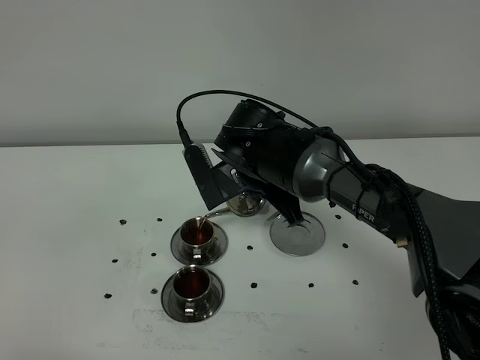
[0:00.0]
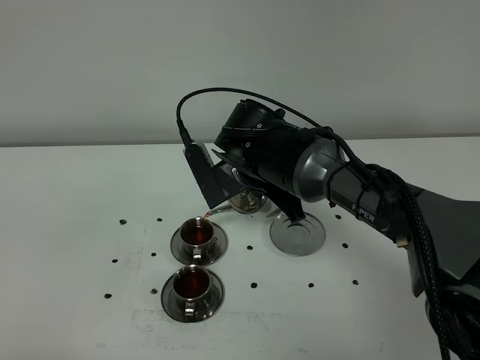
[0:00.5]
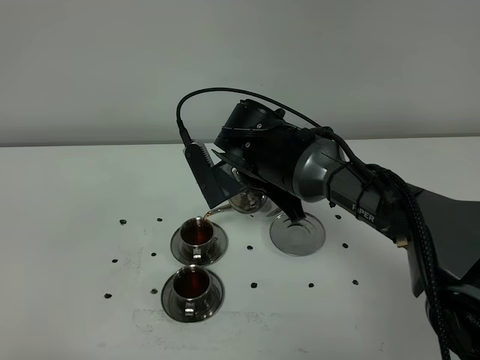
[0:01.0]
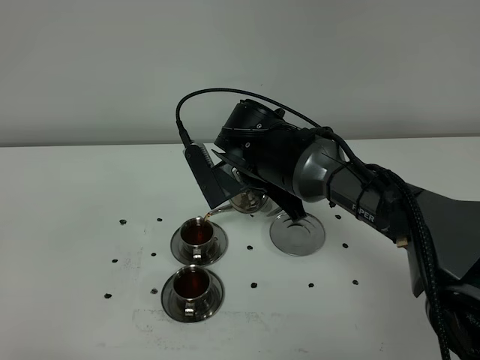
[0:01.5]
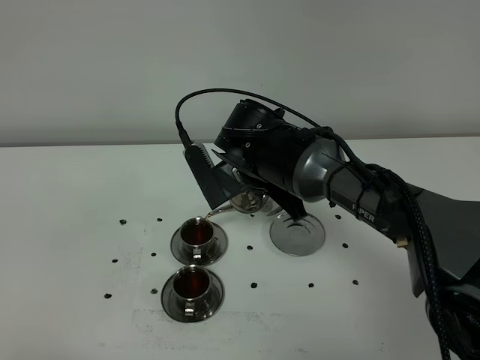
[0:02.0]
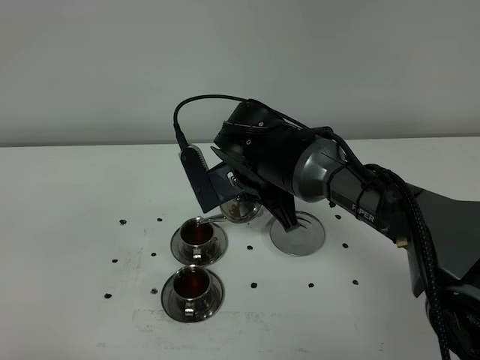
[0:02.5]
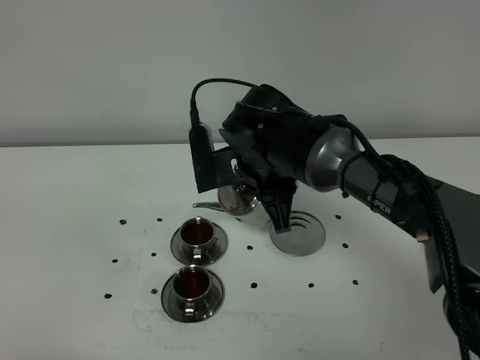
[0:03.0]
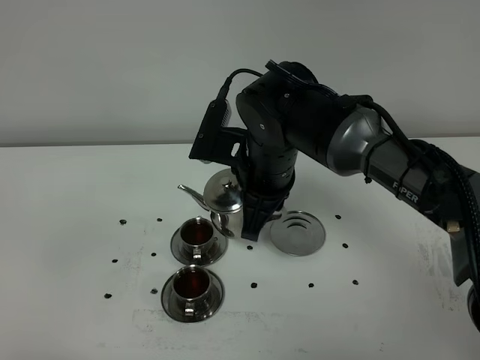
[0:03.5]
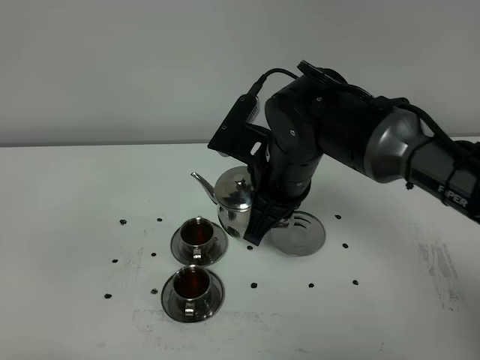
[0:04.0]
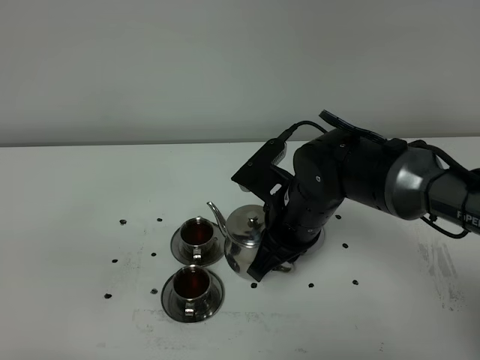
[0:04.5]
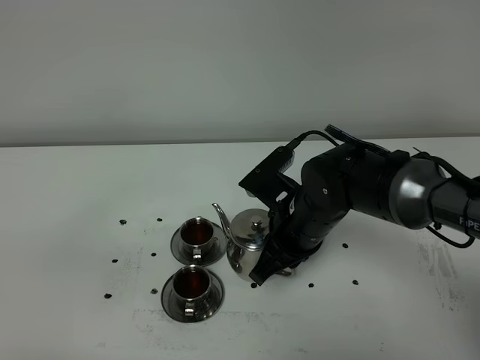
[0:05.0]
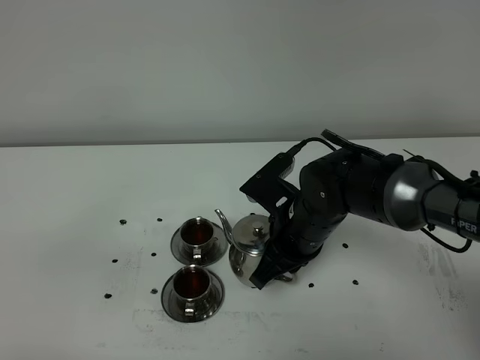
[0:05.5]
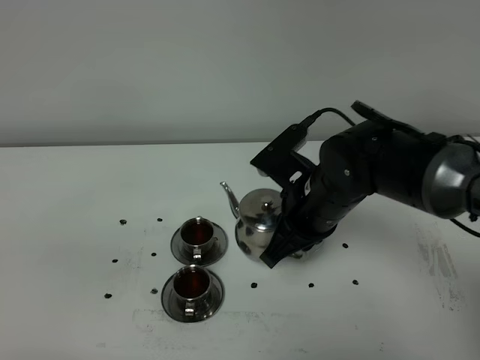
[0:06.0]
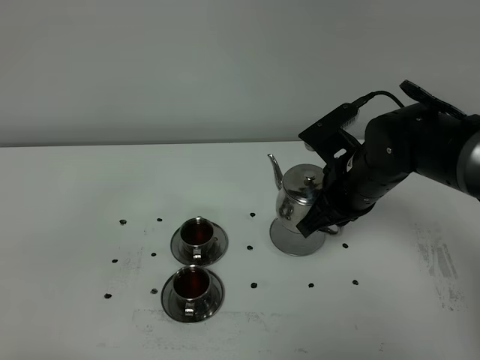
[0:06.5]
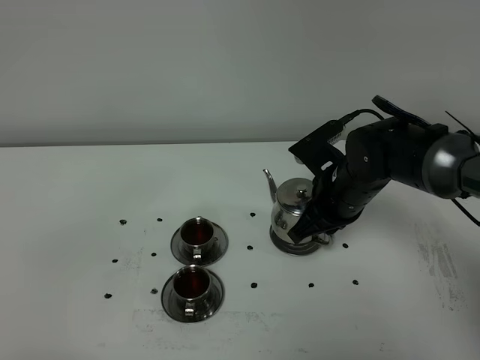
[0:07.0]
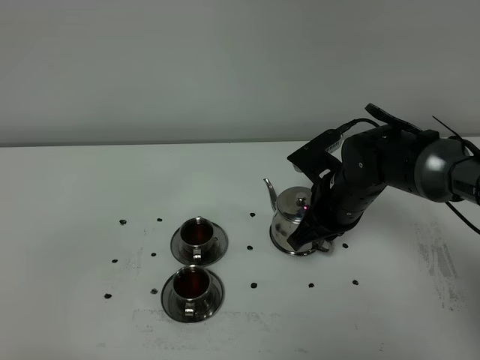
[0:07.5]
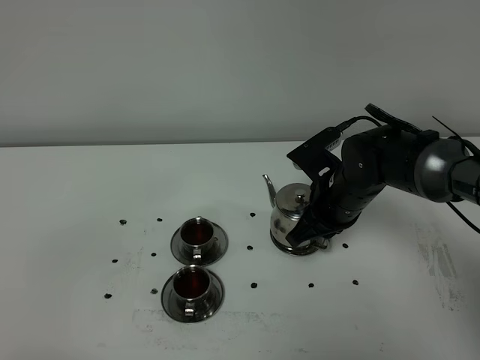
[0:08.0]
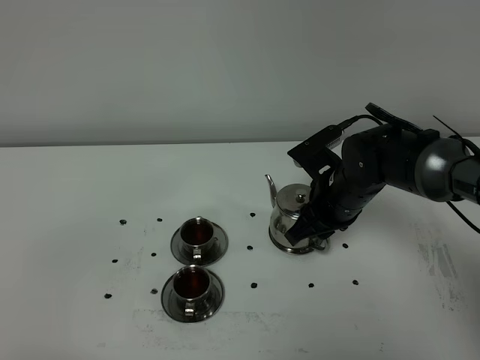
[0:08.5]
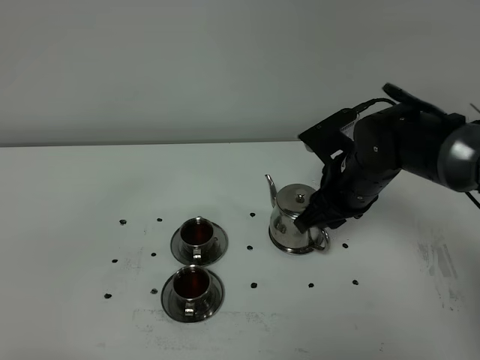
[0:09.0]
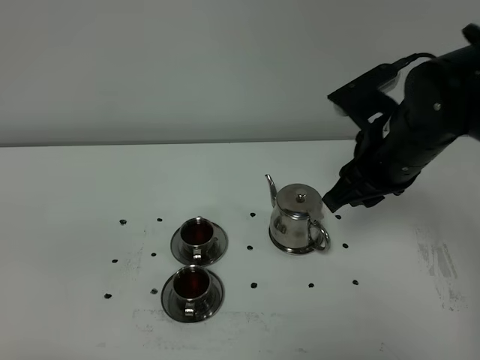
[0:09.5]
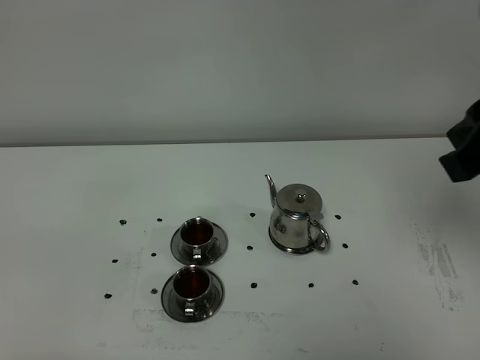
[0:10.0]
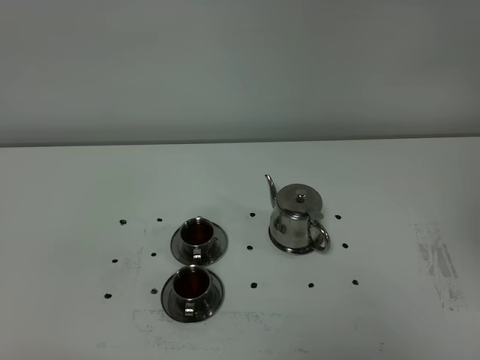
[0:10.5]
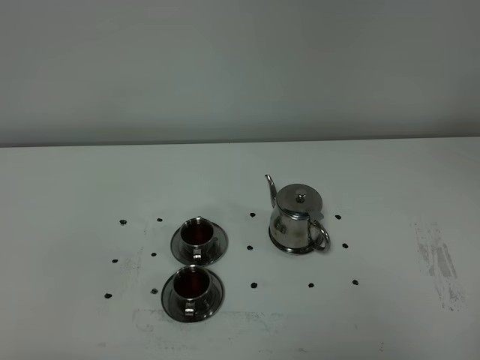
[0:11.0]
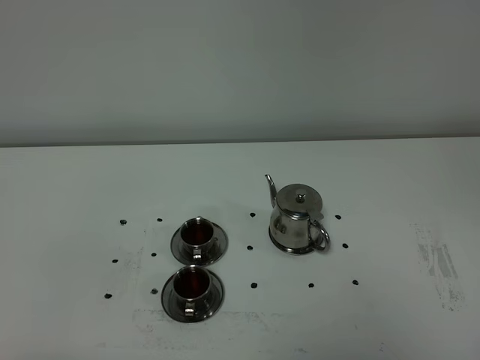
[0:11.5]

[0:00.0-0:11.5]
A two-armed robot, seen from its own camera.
Task of the whole recording: grasp the stainless steel teapot and pour the tea into the two stainless steel teacups one by one, put the stainless steel teapot back in its original place.
Step, 0:00.0 to 0:02.5: Pour tea into the teacup with the right gripper.
0:00.0 to 0:02.0: The two grippers keep their place.
0:02.0 to 0:04.0: The right gripper changes place by roughly 5 cm.
0:06.0 to 0:07.5: The right gripper goes some 10 cm forward and downward.
0:07.5 to 0:09.5: The right gripper heads upward and backward, covering roughly 15 cm, and opens.
0:09.5 to 0:11.5: The right gripper travels backward and to the right by roughly 35 cm, and closes up.

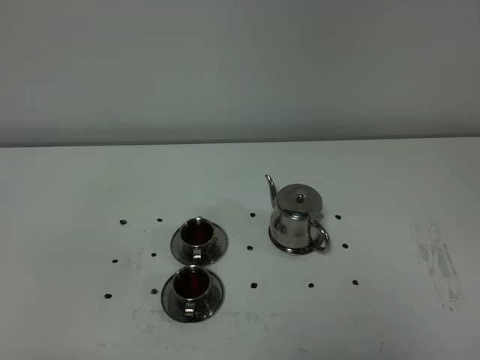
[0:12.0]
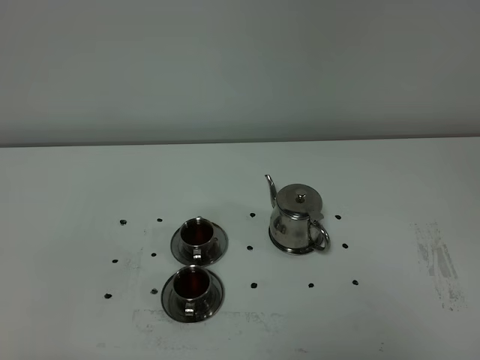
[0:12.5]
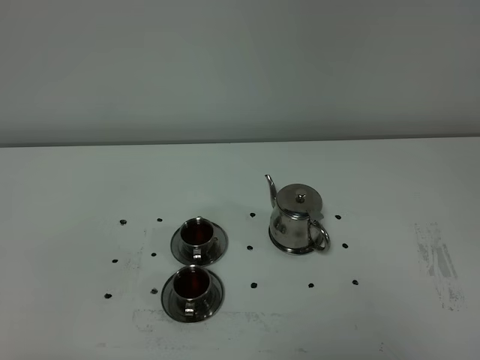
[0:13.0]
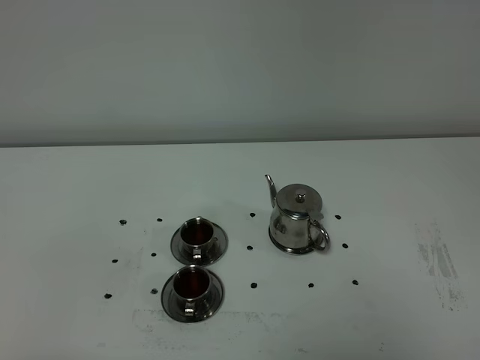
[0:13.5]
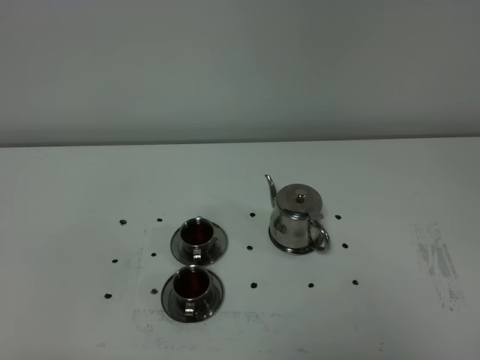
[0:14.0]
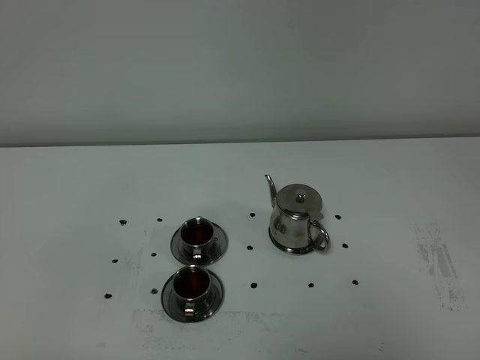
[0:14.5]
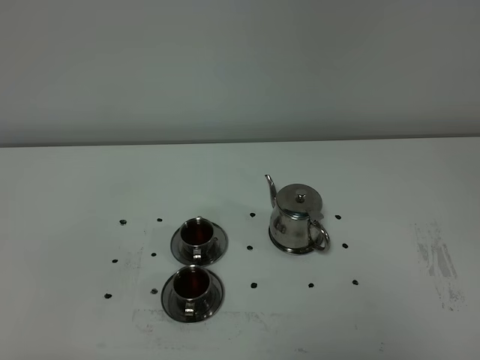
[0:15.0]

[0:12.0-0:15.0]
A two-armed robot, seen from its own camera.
Task of the whole recording: grasp the stainless steel teapot and pour the tea into the two stainless steel teacups one by one, put the stainless steel teapot back in its original place.
0:13.5 to 0:15.0: Neither gripper changes place.

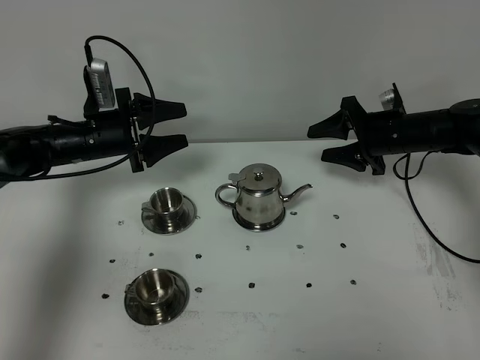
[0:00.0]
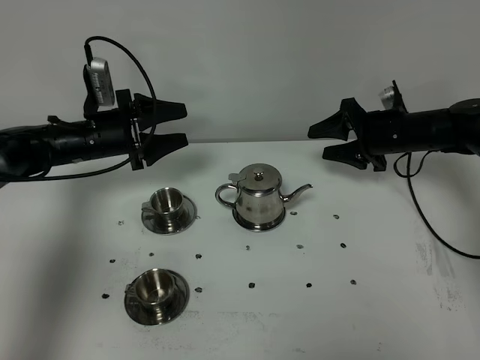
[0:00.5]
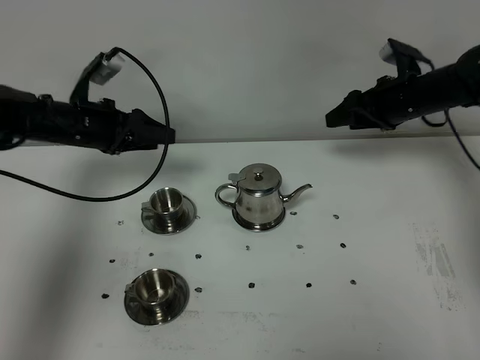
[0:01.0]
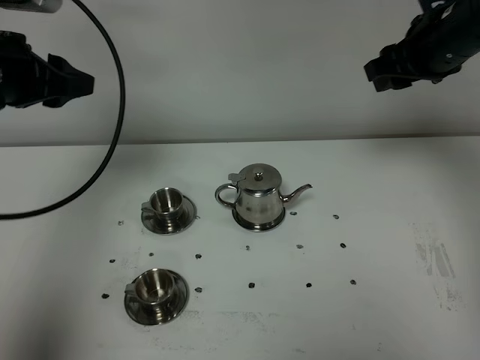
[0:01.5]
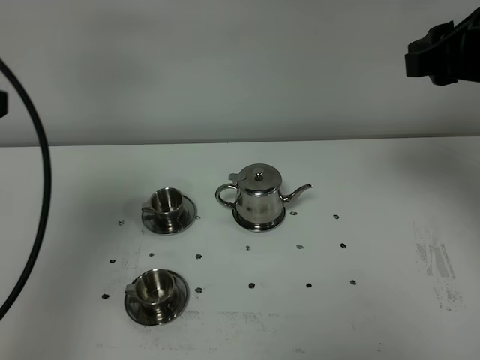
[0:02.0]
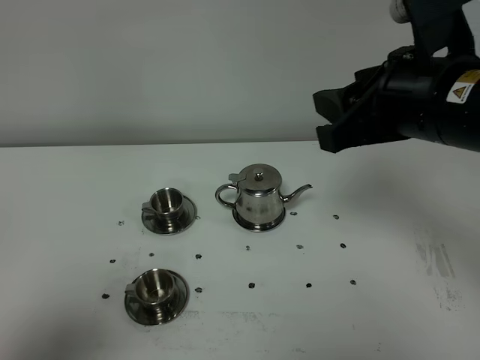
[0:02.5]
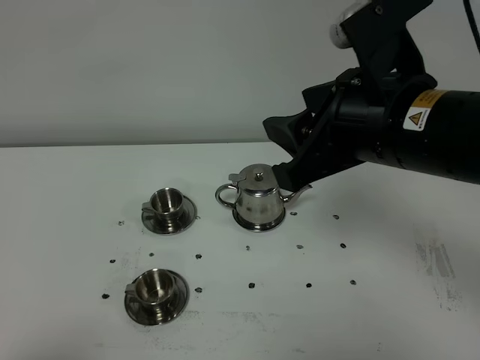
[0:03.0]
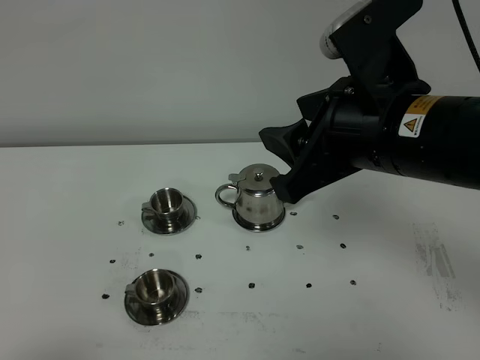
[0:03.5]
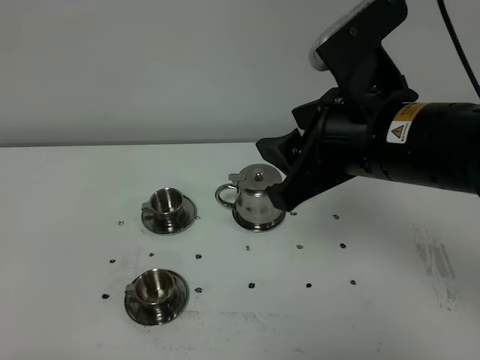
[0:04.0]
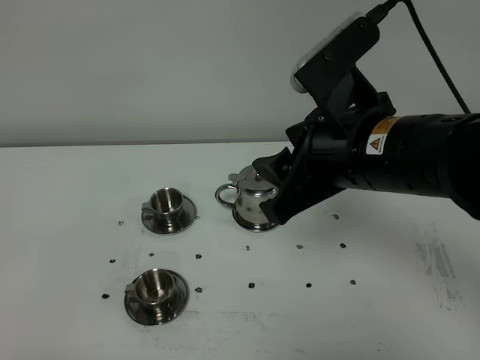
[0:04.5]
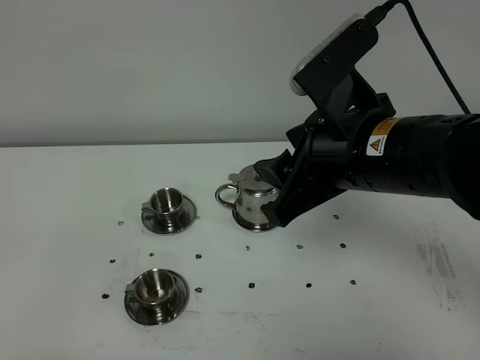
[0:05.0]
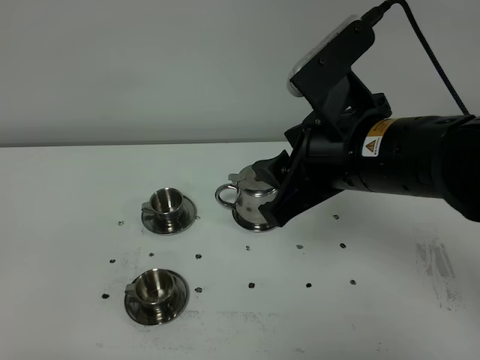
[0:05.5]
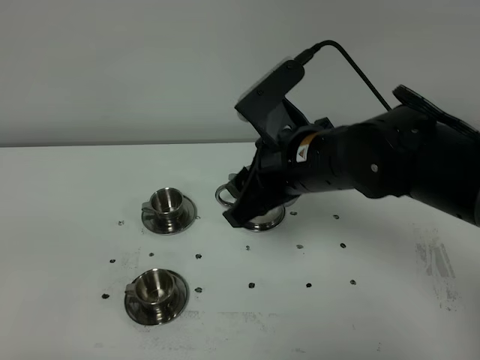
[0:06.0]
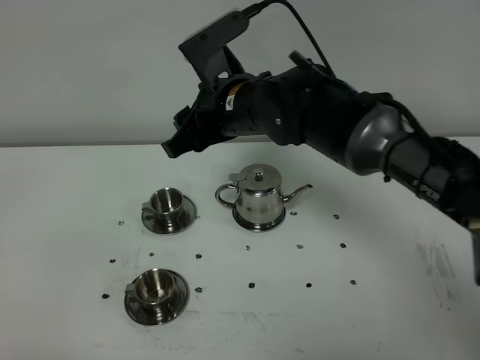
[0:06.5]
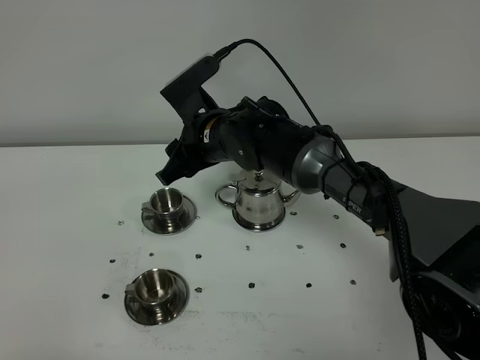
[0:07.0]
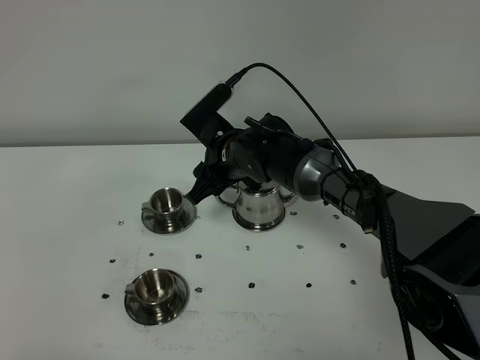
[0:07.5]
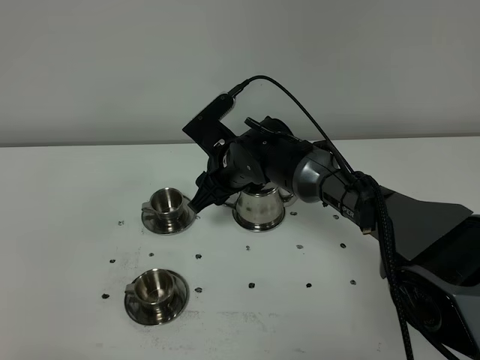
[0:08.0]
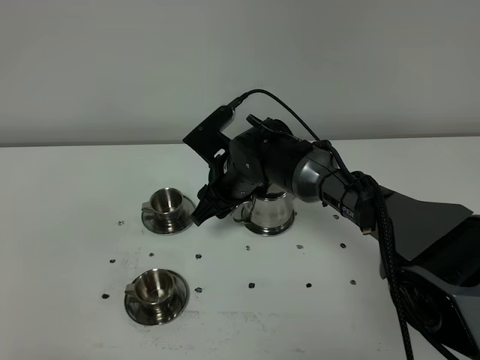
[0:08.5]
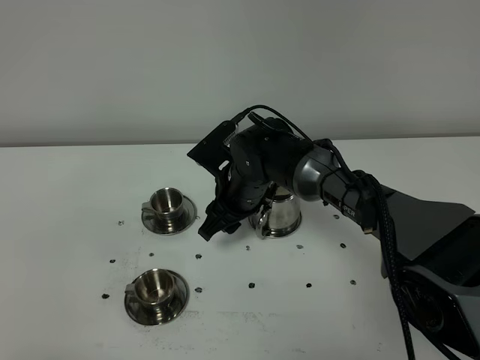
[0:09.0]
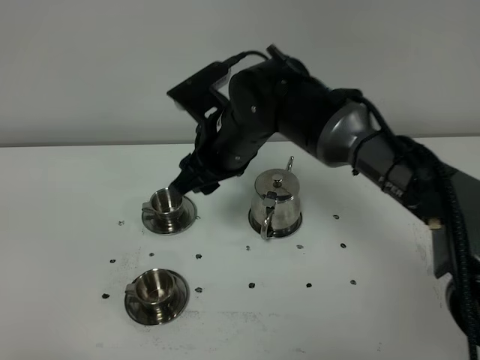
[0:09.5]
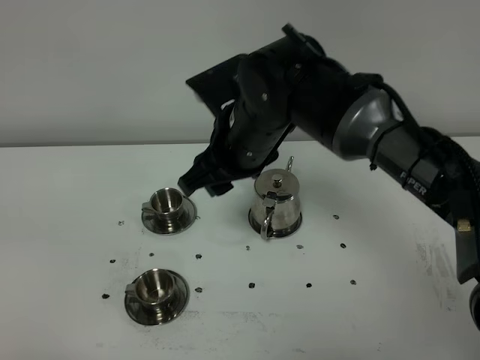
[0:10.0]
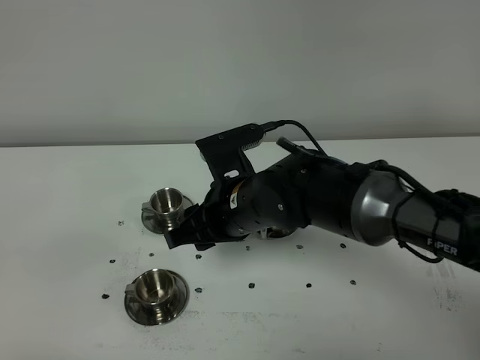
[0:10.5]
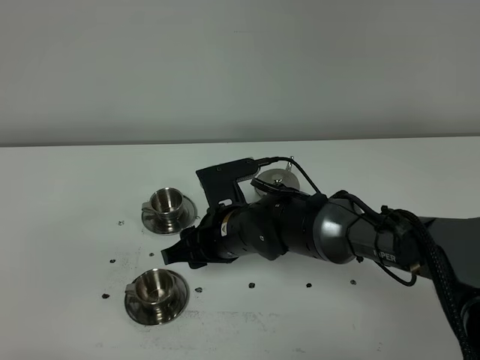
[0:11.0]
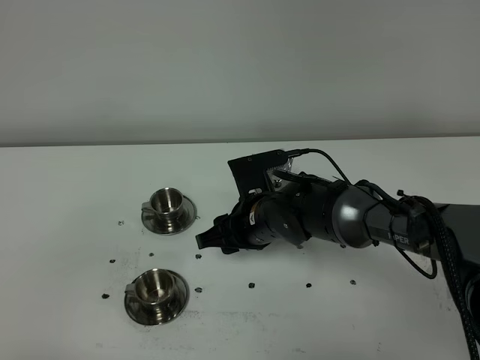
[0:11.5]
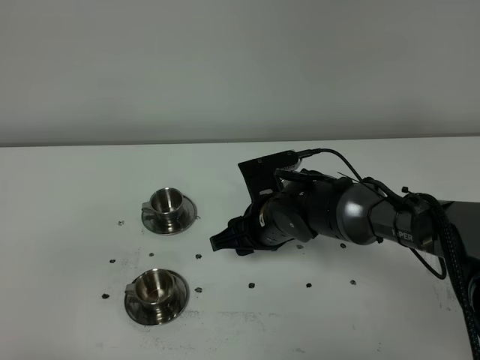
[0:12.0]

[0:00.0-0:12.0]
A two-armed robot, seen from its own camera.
Task of the whole recording: grasp the stainless steel teapot and pour the tea into the two stainless steel teacups one by one, put the stainless steel teapot back in its original place.
0:00.0 to 0:02.0: The left gripper shifts approximately 40 cm backward and upward, and closes its fingers. Meanwhile the right gripper heads upward and backward, covering approximately 30 cm.
0:02.0 to 0:04.0: The left gripper is displaced backward and downward by approximately 25 cm, and closes up. Meanwhile the right gripper heads to the left and backward, covering some 15 cm.
0:04.0 to 0:06.0: The right gripper moves downward and forward, some 10 cm.
0:06.0 to 0:08.0: The right gripper travels forward, downward and to the left by about 20 cm.
0:08.0 to 0:10.0: The right gripper travels upward and backward by about 15 cm.
0:10.0 to 0:12.0: The right gripper is displaced downward by about 15 cm.
